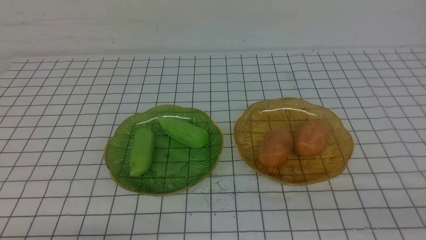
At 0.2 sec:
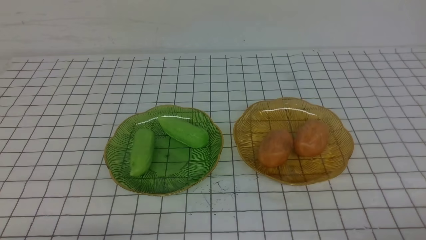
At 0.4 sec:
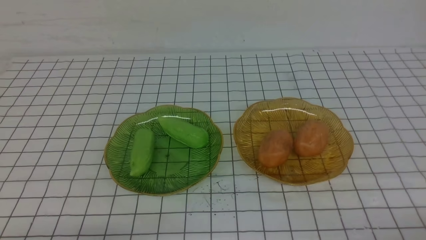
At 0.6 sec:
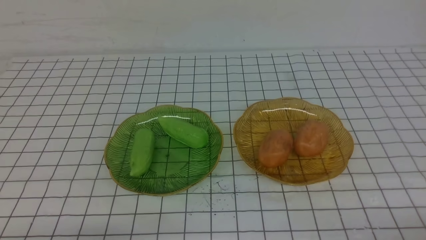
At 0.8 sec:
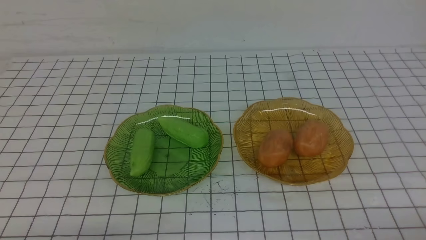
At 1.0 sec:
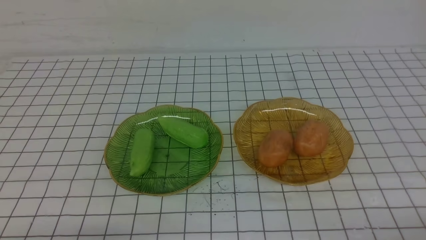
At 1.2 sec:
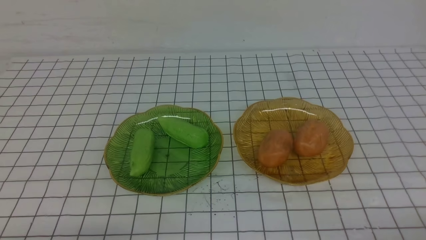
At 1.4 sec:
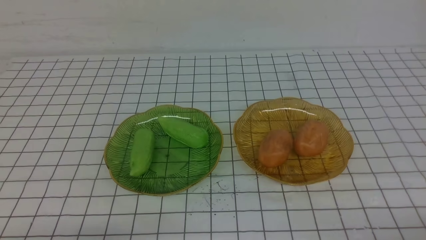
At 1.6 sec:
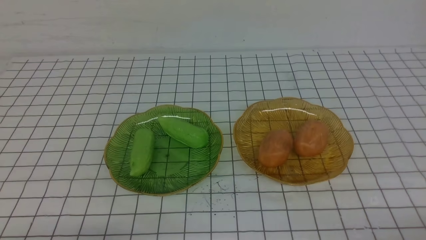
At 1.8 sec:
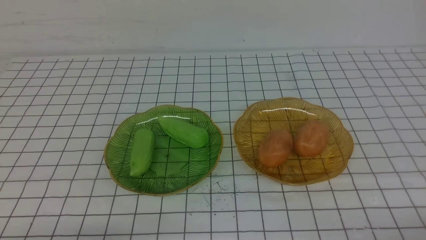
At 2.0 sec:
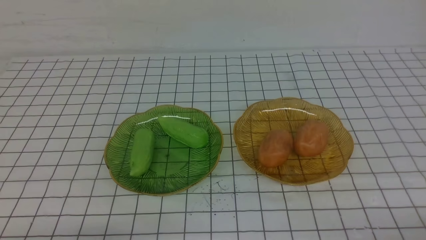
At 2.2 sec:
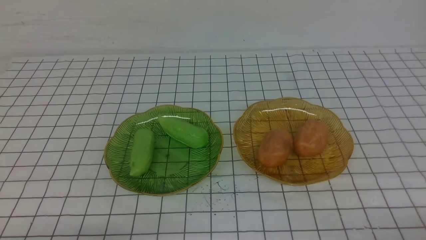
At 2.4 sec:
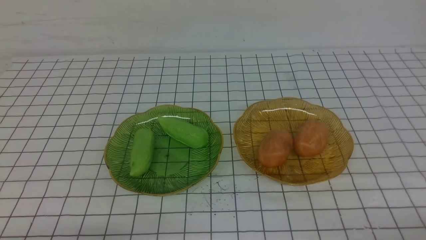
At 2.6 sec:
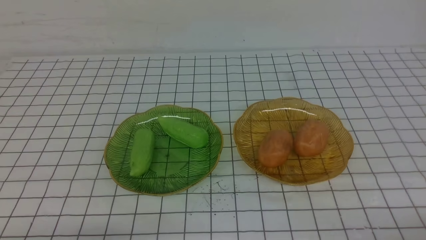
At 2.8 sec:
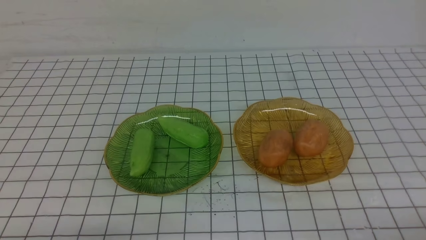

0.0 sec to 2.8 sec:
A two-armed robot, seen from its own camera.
1.4 sec to 2.8 sec: The two grippers keep their place.
